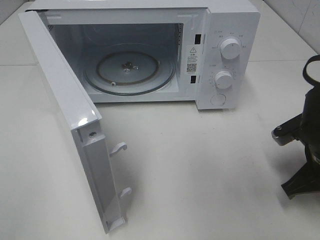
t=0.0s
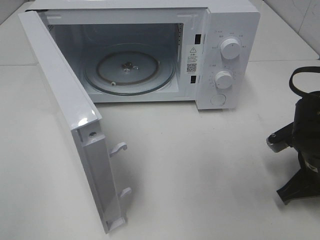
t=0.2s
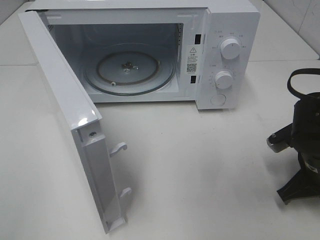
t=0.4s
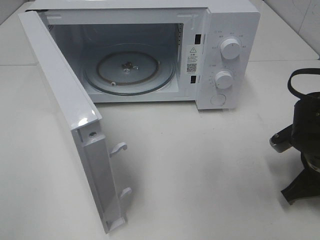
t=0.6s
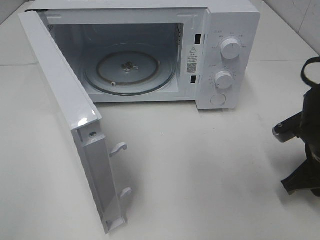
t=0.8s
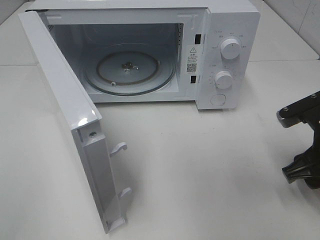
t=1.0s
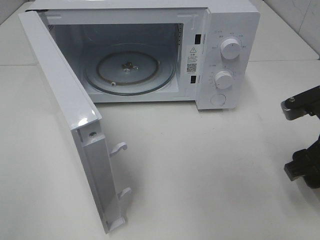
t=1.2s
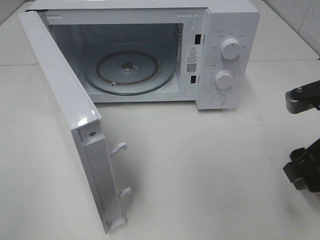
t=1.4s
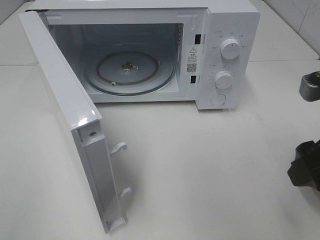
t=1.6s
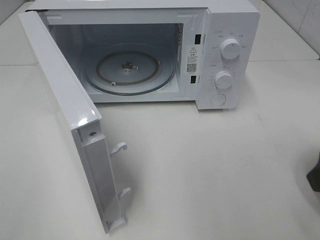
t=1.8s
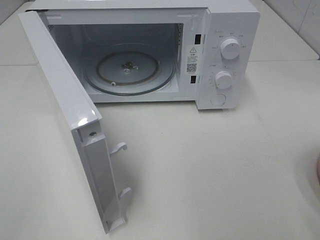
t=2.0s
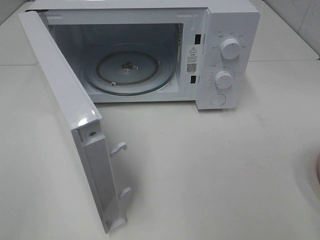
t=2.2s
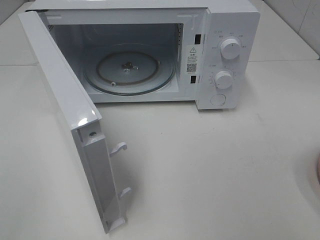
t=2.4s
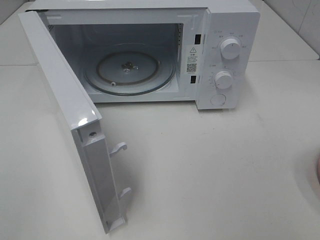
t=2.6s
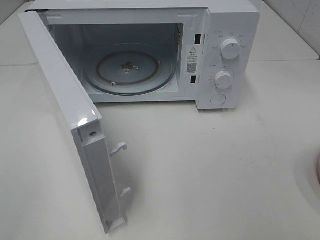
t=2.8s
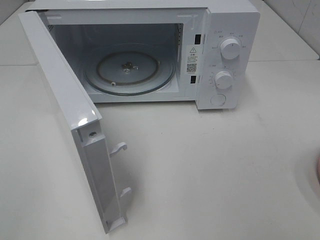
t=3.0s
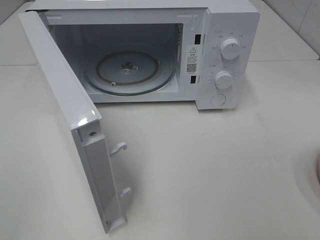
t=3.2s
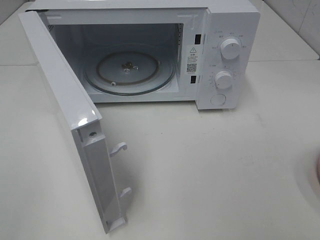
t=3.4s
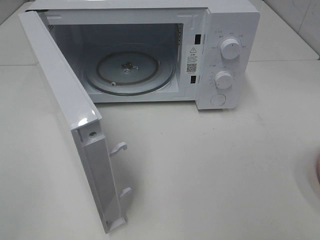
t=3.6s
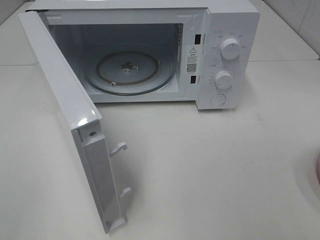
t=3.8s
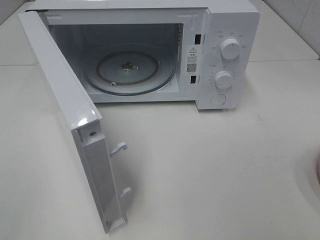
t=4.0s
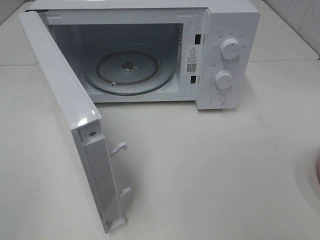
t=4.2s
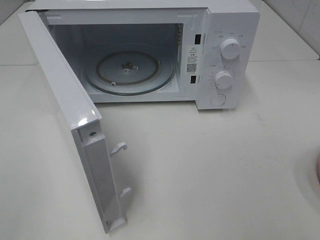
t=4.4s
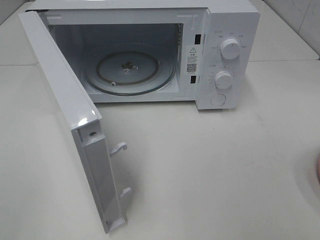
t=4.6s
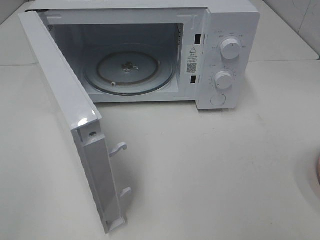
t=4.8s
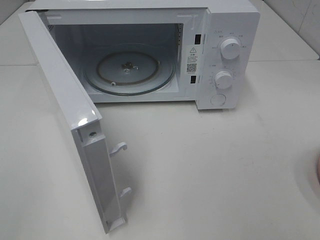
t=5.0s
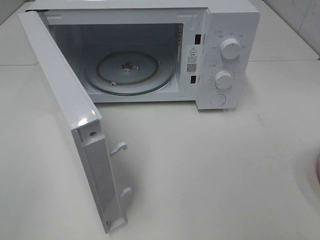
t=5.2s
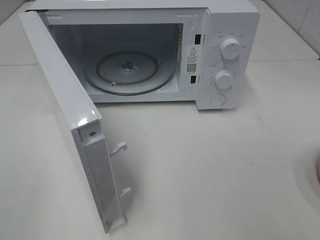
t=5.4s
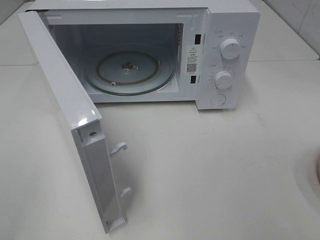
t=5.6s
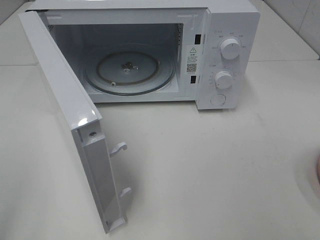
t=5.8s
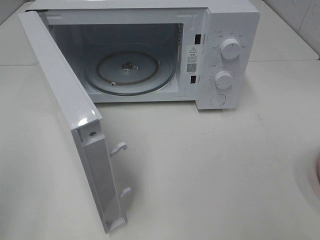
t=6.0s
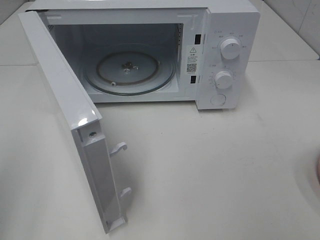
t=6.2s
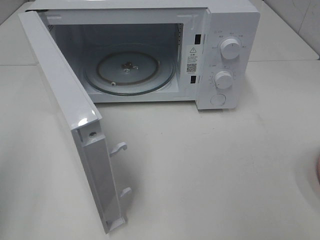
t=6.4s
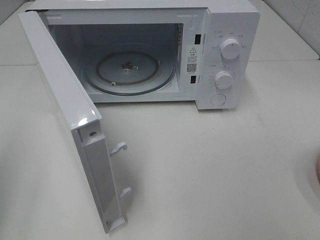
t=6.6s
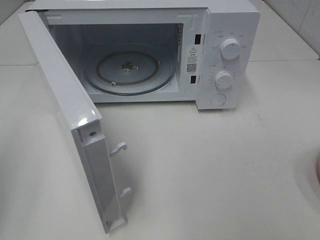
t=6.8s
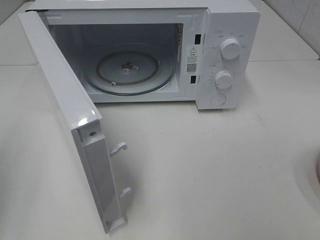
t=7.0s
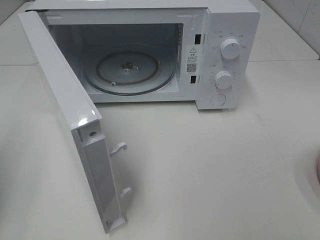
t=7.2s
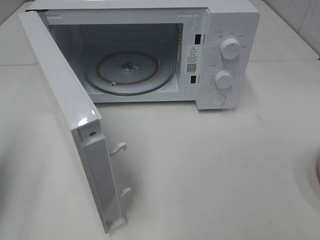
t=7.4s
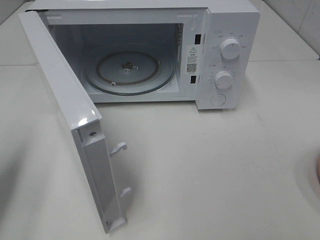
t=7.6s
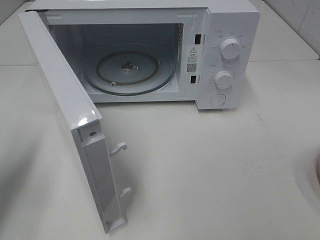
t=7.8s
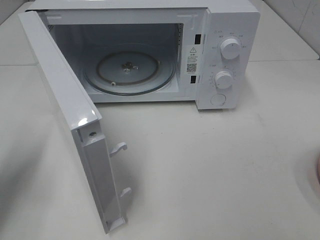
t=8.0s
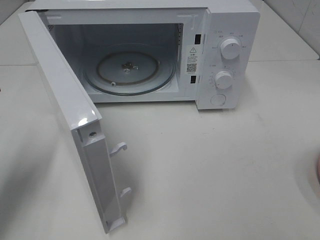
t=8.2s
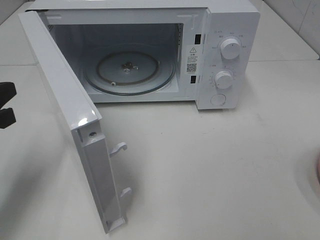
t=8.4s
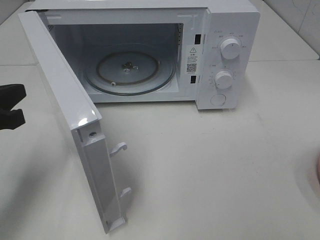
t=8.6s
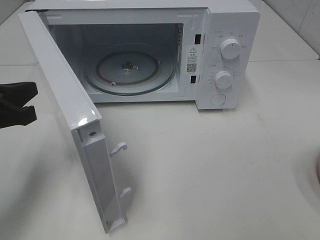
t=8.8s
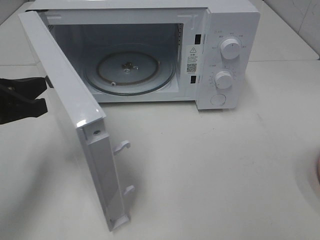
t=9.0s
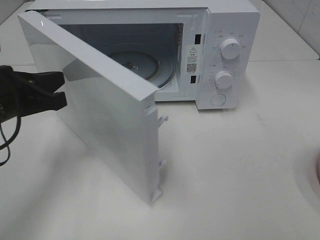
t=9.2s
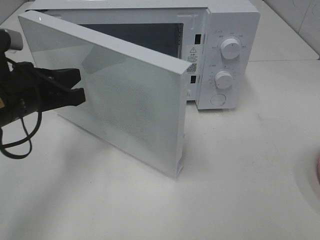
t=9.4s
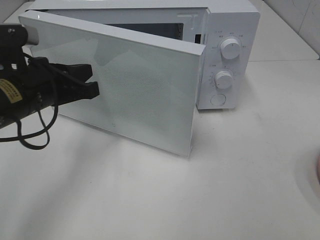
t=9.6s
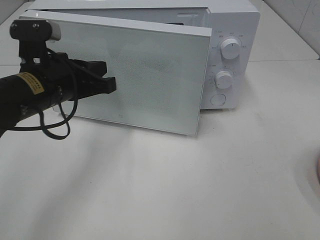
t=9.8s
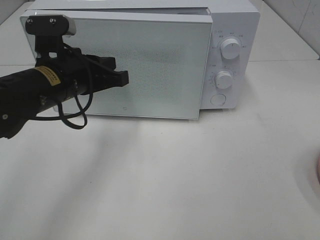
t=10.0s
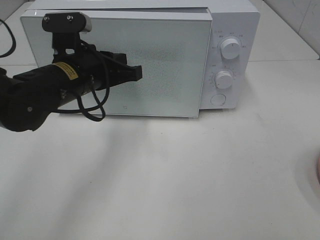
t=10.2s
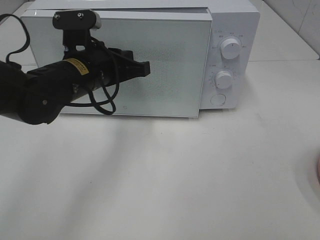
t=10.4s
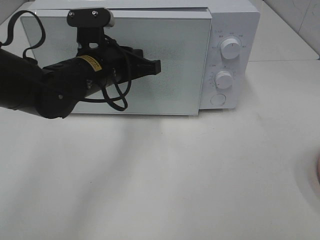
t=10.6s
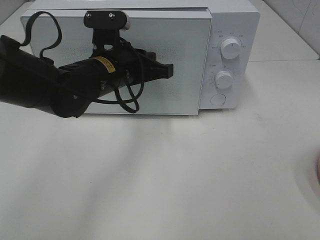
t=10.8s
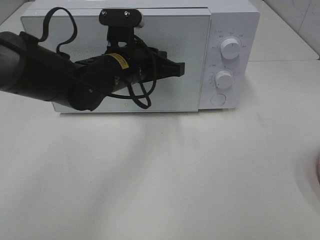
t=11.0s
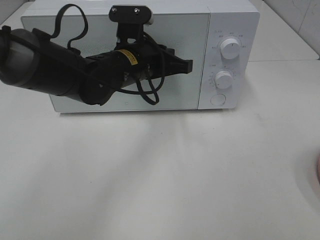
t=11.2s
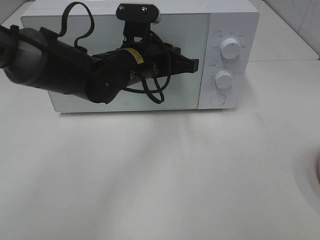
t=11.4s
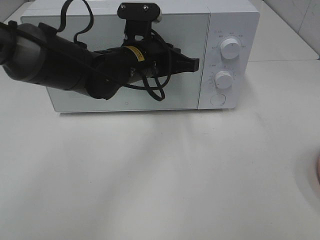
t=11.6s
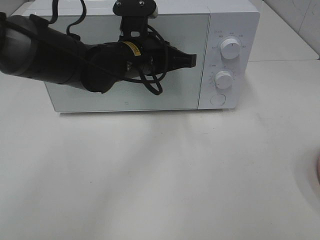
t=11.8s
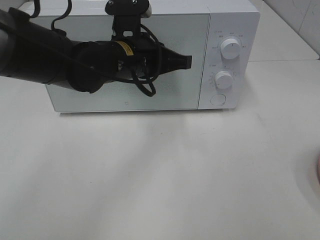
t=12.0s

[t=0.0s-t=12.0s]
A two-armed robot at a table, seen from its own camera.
Task of the whole recording: Heat the burger.
Step, t=0.6s to t=11.8s: Left hand: close the microwave door.
t=0.0s to t=1.6s: The right gripper shifts roughly 15 cm upward and backward, and opens up.
t=1.6s to t=3.0s: The right gripper moves backward and to the right, some 15 cm.
t=6.0s to t=7.6s: The left gripper shifts approximately 15 cm forward and downward.
t=7.6s to t=9.0s: The left gripper is displaced to the right and forward by approximately 10 cm.
t=9.0s to t=10.4s: The left gripper travels to the right and forward by roughly 15 cm.
t=10.4s to t=12.0s: The left gripper heads to the right, covering approximately 5 cm.

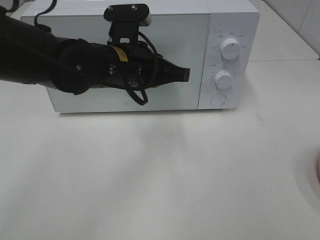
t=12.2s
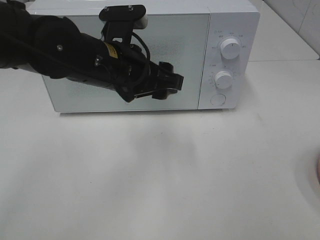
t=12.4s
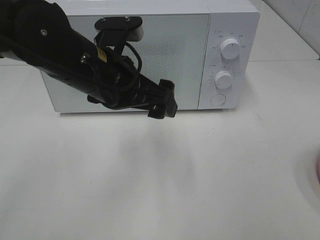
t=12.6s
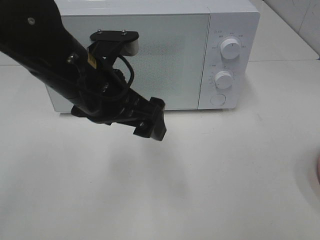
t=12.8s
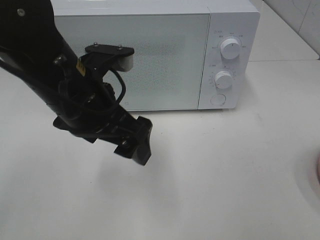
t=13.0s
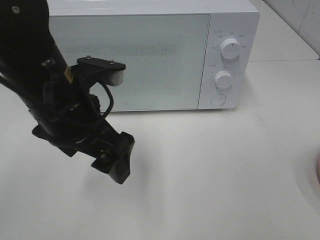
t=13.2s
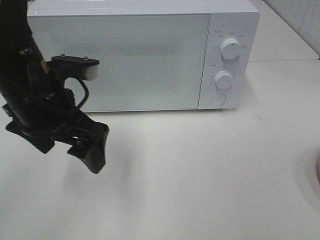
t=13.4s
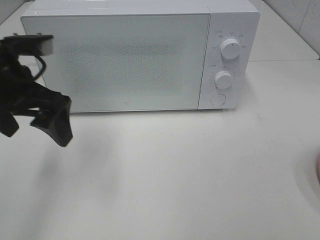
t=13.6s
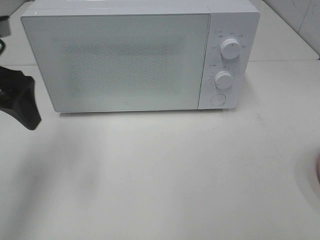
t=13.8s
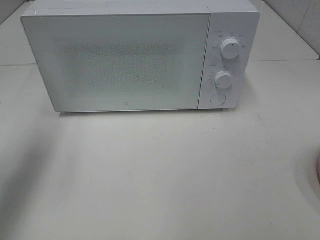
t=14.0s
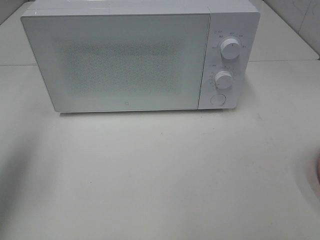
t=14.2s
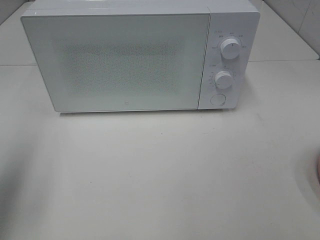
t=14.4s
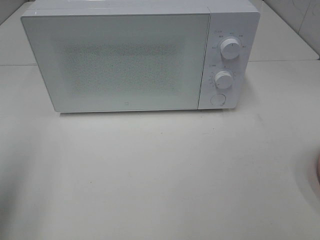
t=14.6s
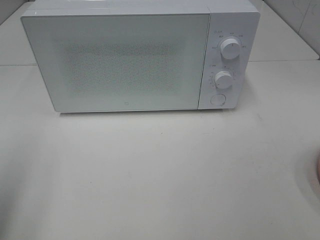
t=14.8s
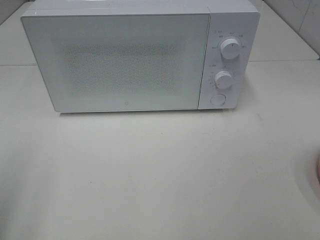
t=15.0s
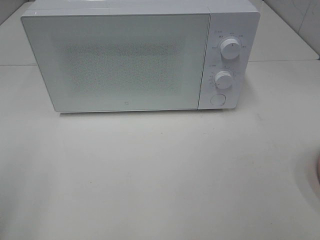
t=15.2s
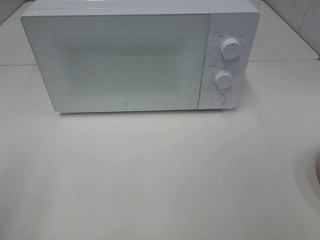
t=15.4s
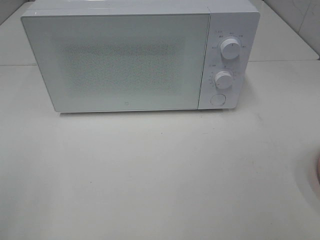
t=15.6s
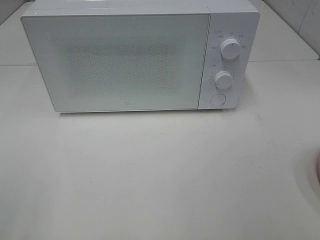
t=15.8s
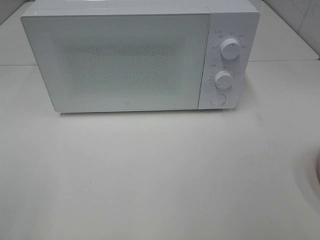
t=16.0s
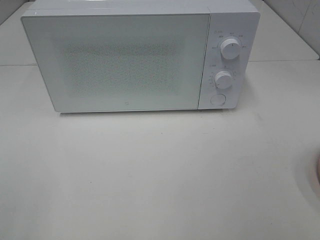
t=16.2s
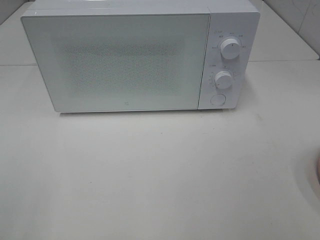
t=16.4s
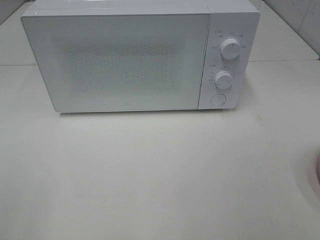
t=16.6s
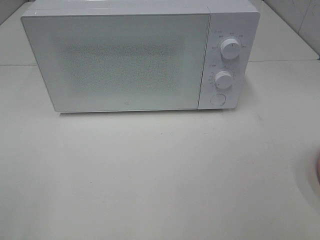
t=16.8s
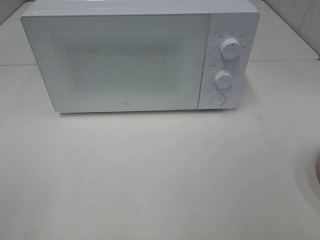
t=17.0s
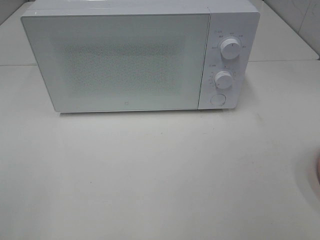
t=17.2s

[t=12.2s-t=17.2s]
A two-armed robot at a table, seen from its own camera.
Task of the whole recording: Heat the burger.
t=12.2s to t=13.8s: The left gripper is displaced to the left by about 20 cm, and opens.
t=13.8s to t=15.6s: The left gripper is displaced backward by some 25 cm.

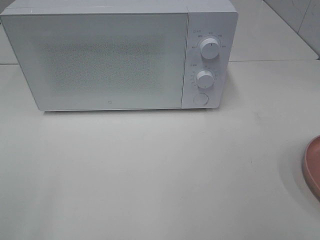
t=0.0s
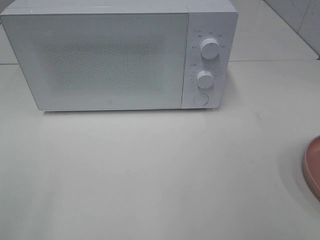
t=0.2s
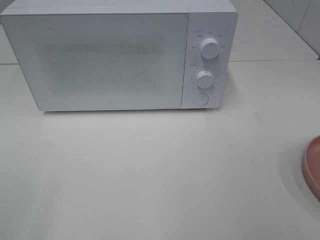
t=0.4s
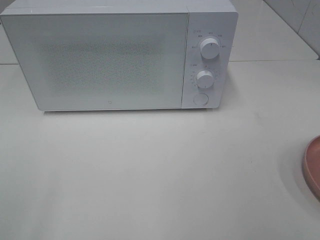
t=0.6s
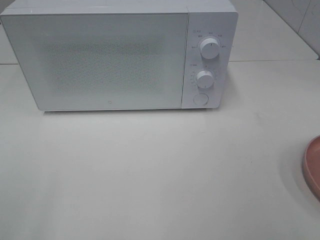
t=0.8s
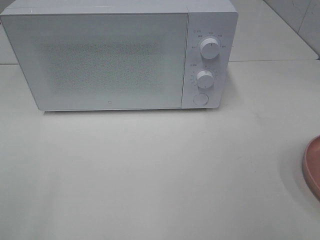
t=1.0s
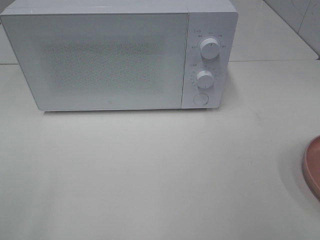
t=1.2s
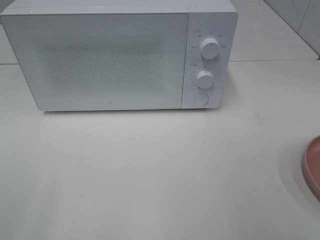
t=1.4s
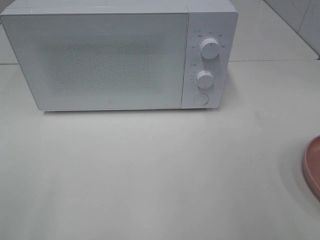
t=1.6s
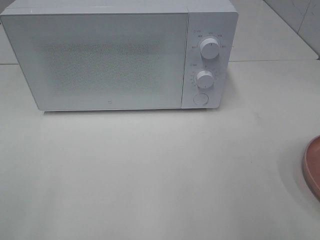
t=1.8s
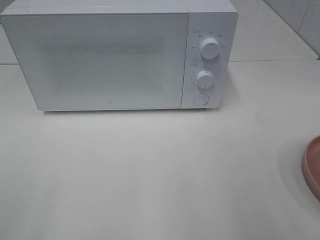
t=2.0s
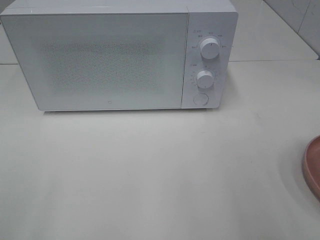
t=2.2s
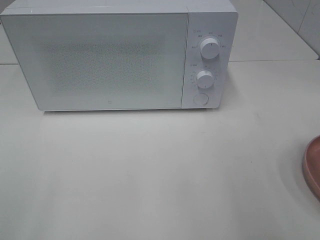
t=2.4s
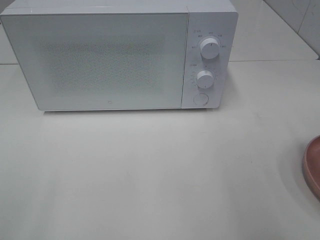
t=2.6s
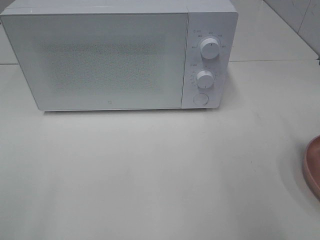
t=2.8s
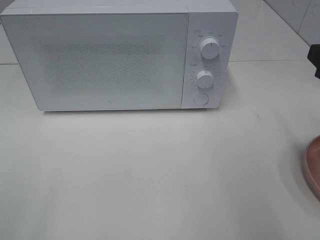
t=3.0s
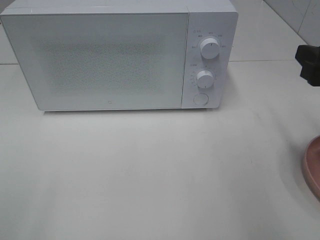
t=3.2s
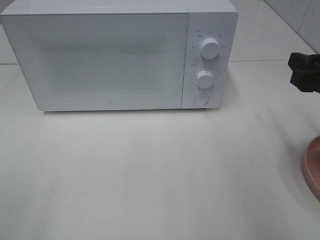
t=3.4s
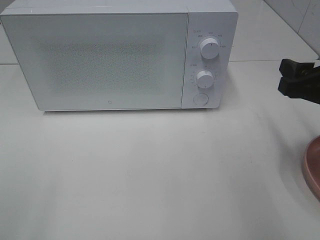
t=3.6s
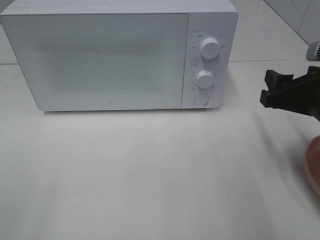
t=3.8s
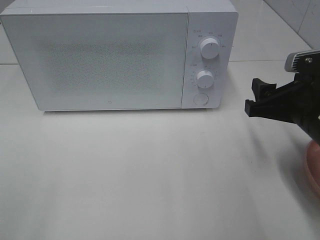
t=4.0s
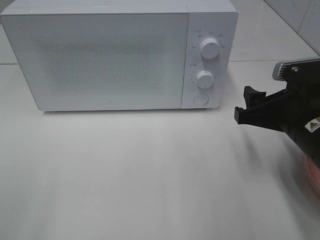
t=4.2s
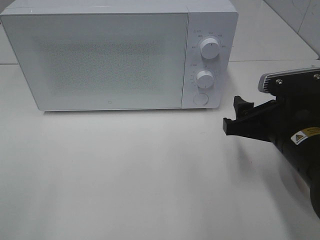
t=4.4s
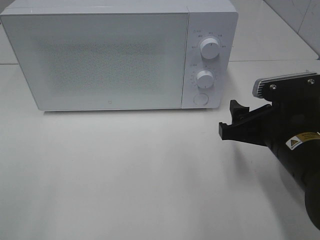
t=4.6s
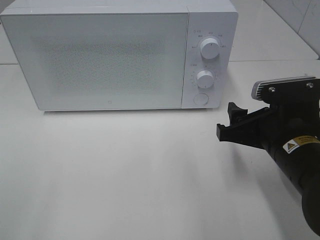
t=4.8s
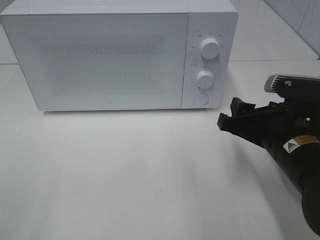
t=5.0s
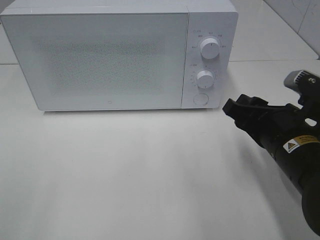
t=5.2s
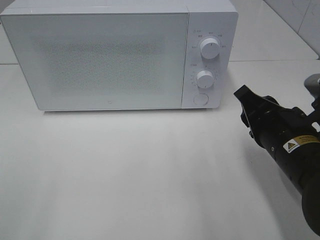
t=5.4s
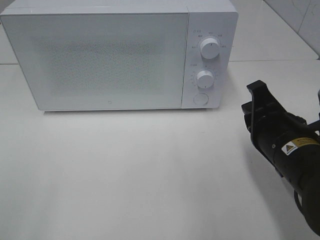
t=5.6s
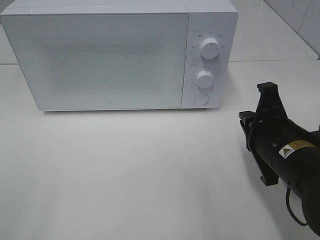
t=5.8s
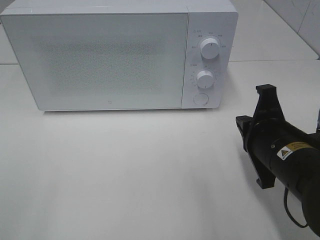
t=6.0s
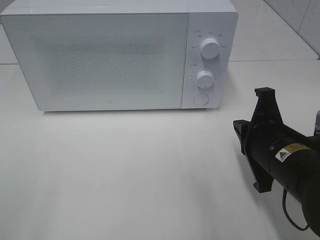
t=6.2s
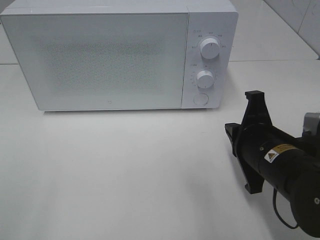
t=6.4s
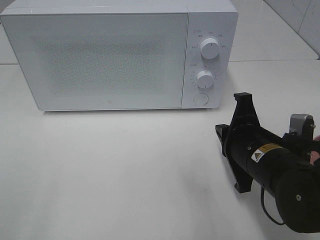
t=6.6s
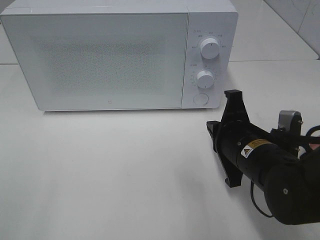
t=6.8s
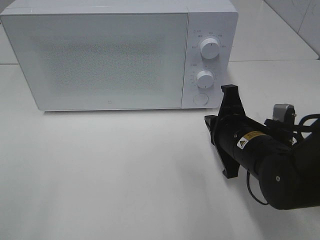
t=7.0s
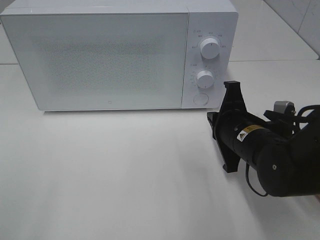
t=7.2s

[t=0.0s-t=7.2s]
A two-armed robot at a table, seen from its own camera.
Task of the whole recording: Heat the burger.
t=2.8s to t=4.4s: The right gripper heads downward and to the left, covering roughly 15 cm.
t=4.4s to t=5.8s: The right gripper closes.
t=5.8s to t=7.2s: The right gripper travels forward by about 5 cm.
